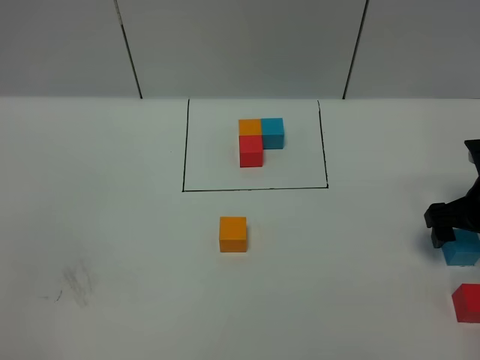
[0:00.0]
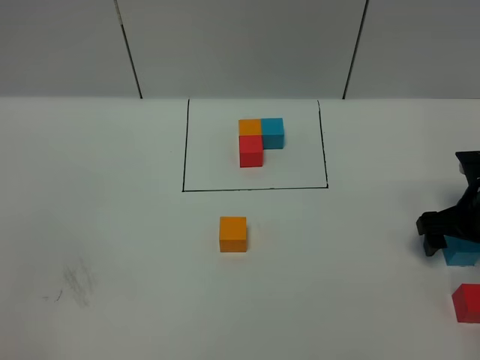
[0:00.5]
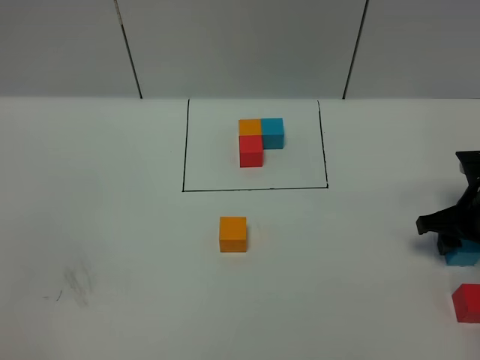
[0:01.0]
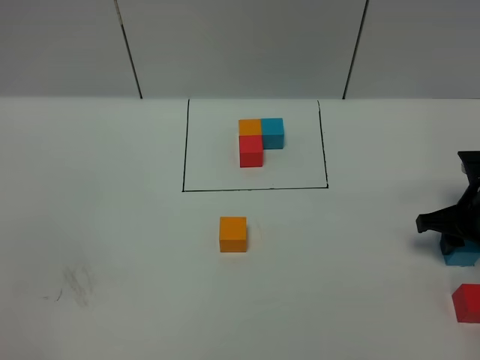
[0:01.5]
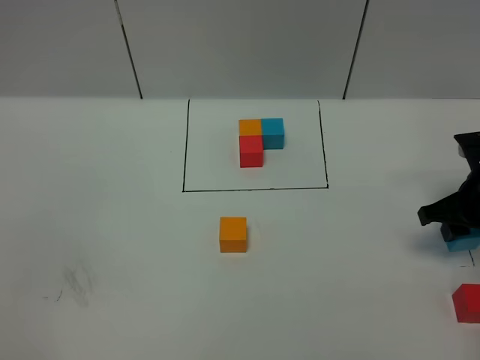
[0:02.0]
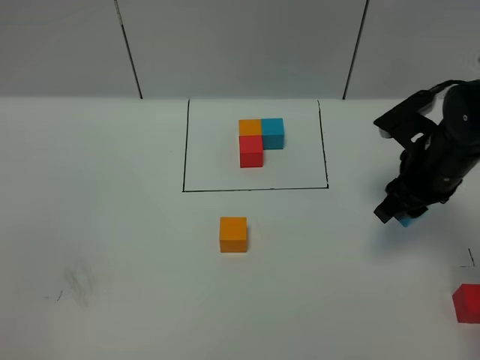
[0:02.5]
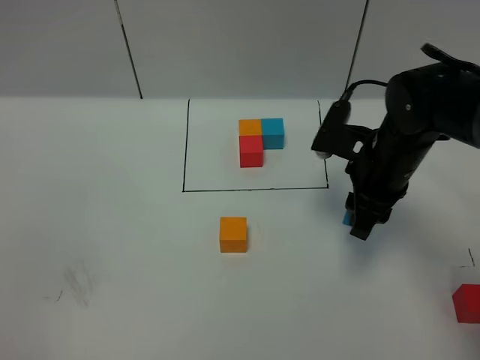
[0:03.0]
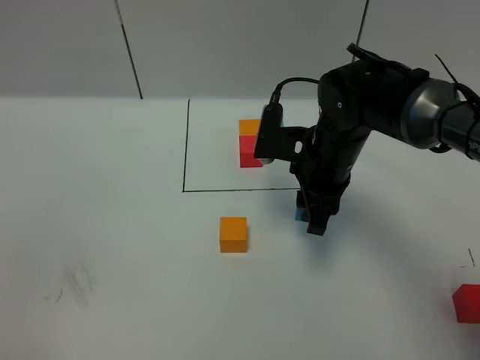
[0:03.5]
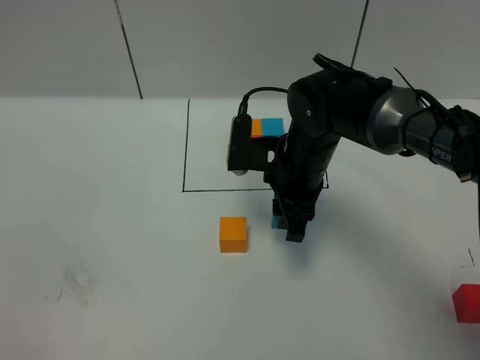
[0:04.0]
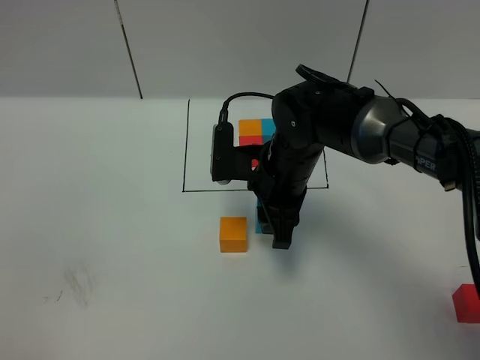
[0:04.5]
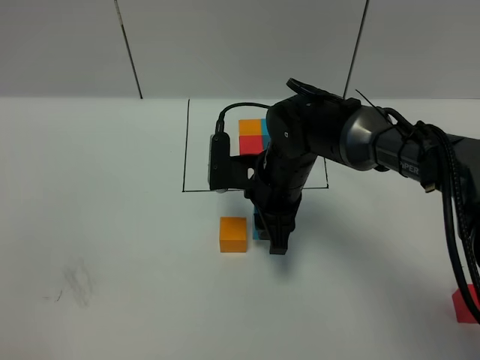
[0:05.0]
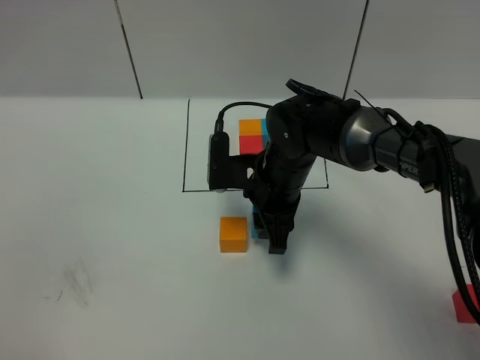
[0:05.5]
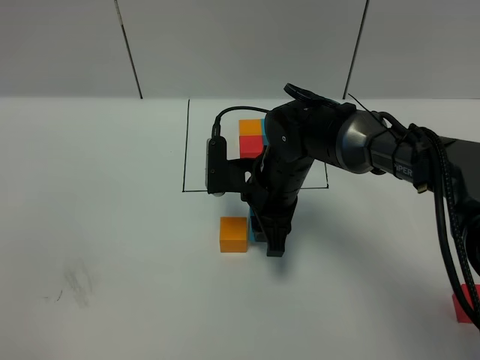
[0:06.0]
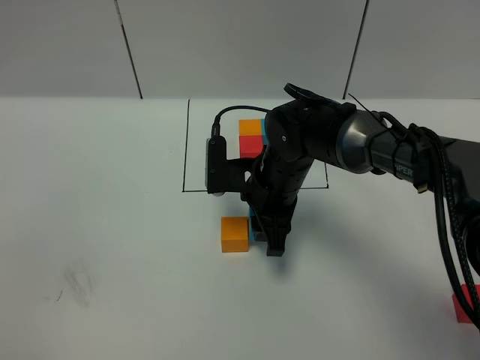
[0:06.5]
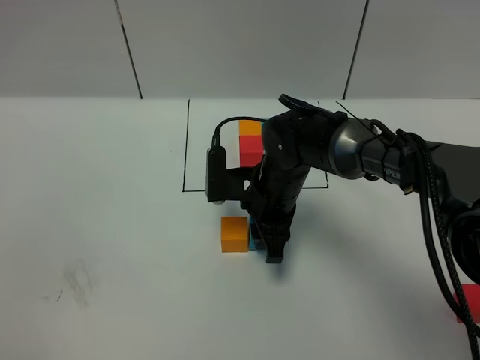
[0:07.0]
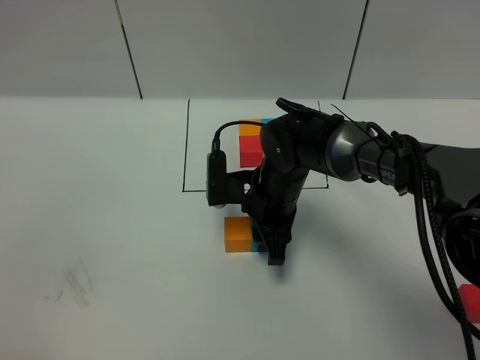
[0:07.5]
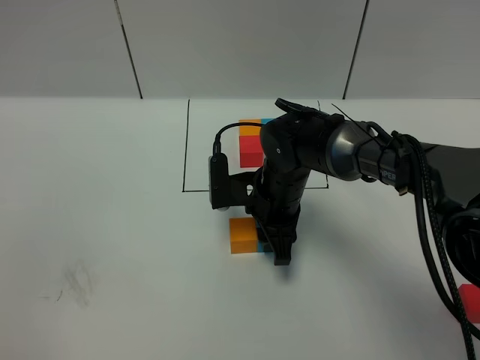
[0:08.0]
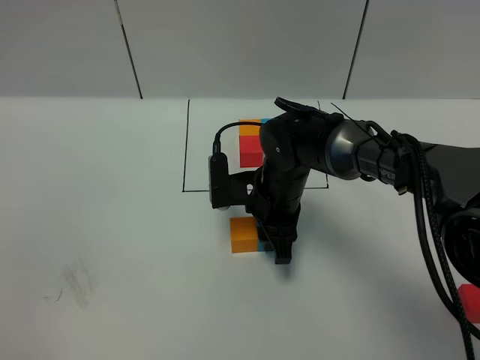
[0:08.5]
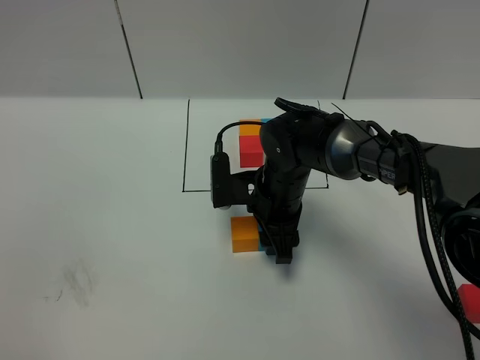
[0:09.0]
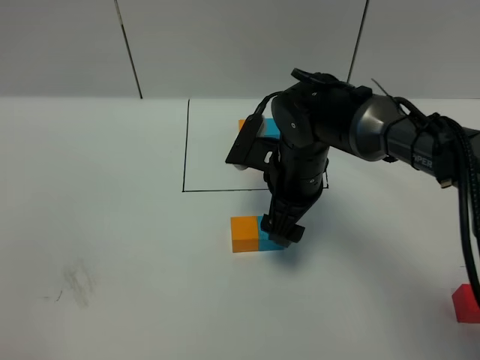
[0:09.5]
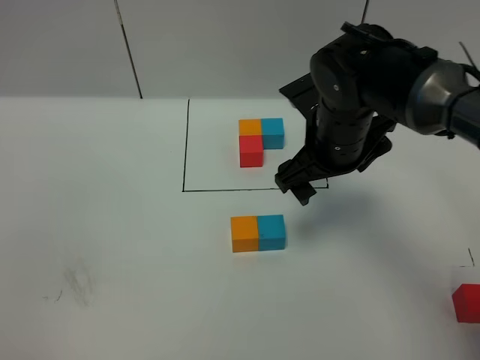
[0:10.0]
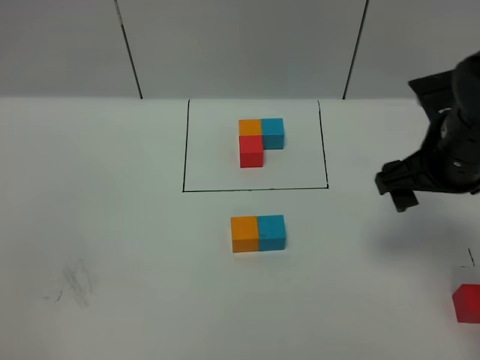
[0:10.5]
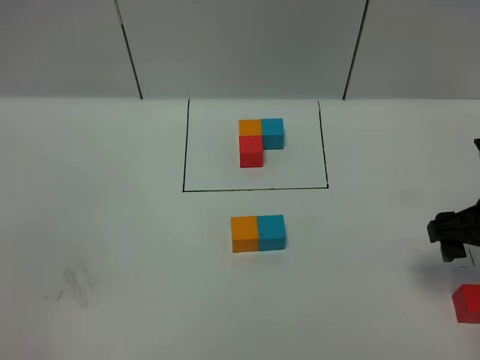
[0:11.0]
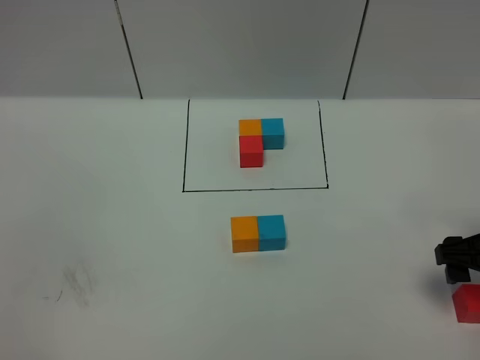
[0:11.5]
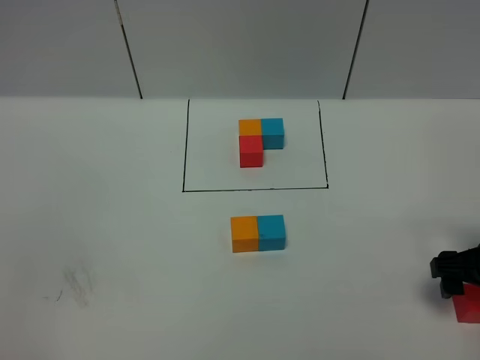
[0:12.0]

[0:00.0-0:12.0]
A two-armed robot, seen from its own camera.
Task of the whole recording: According to the building block template in front, assemble the scattered blocks together.
Step, 0:00.0 to 0:09.0: Put the blue cube on the right of the orange cube.
0:00.0 to 0:02.0: The right gripper closes up.
0:02.0 to 0:04.0: The right gripper travels to the left by approximately 25 cm.
0:04.0 to 0:06.0: The grippers move only a little.
0:06.0 to 0:08.0: The grippers move only a little.
0:08.0 to 0:10.0: The right gripper goes approximately 15 cm upward and to the right, and opens.
0:10.0 to 0:12.0: The right gripper shifts about 25 cm to the right, backward and downward.

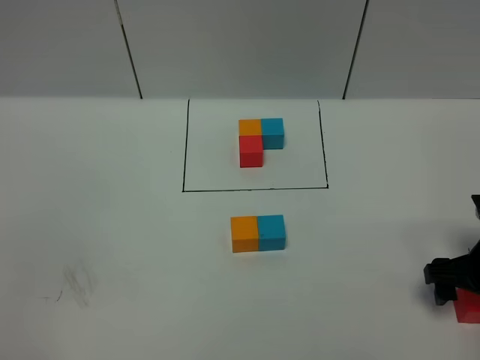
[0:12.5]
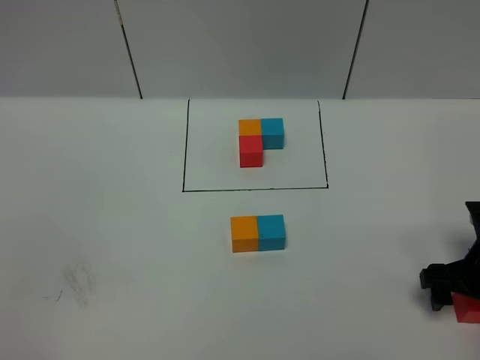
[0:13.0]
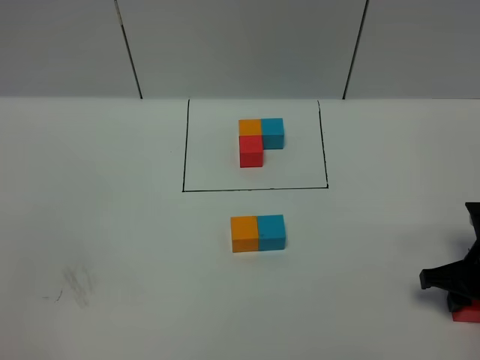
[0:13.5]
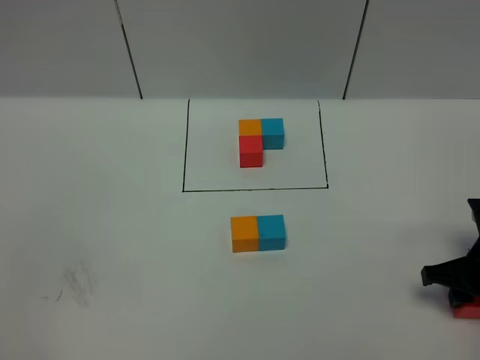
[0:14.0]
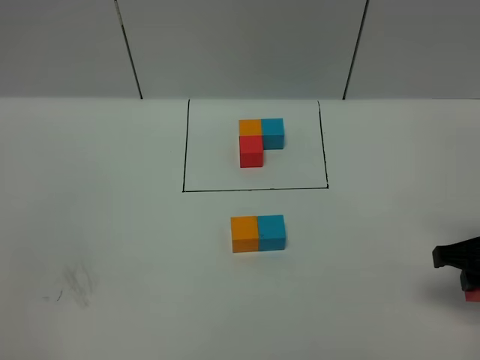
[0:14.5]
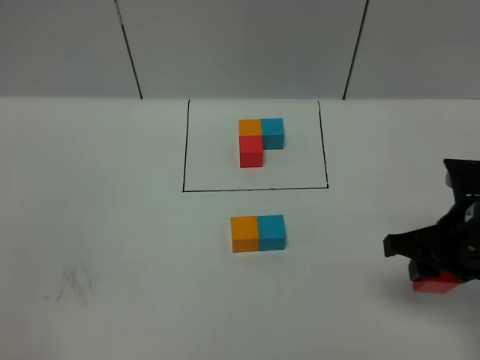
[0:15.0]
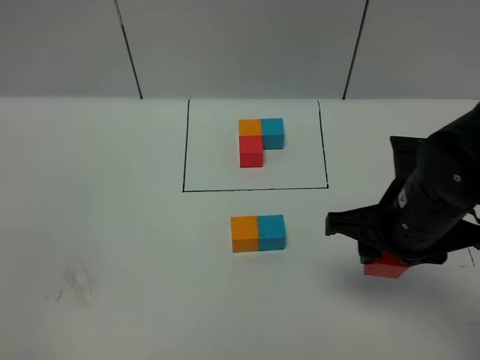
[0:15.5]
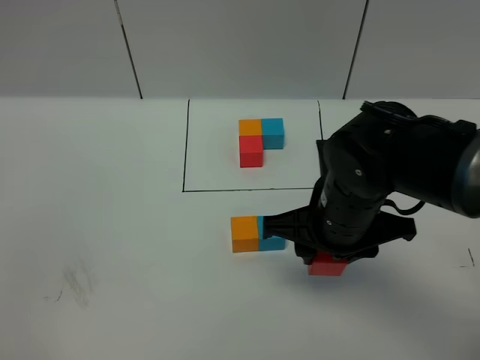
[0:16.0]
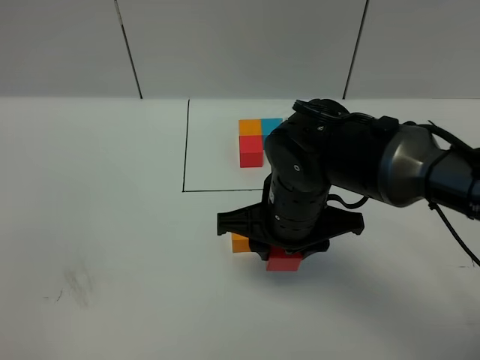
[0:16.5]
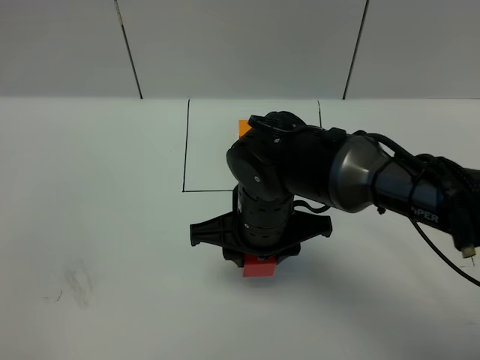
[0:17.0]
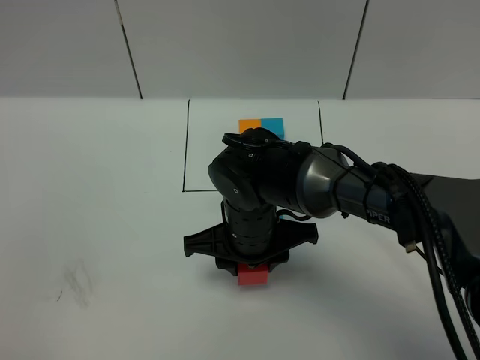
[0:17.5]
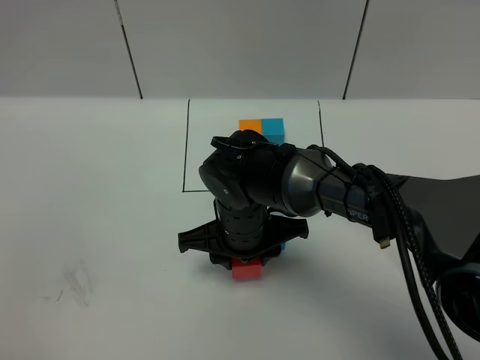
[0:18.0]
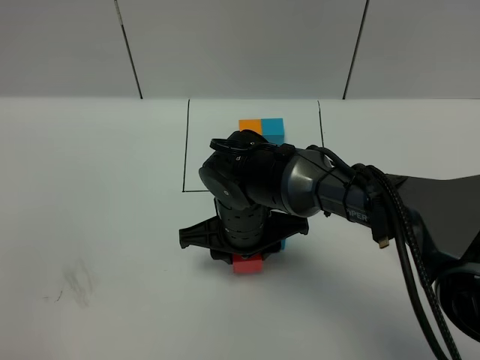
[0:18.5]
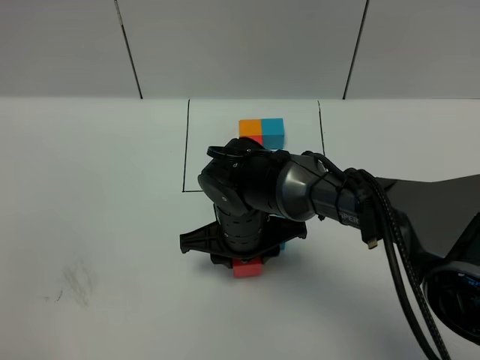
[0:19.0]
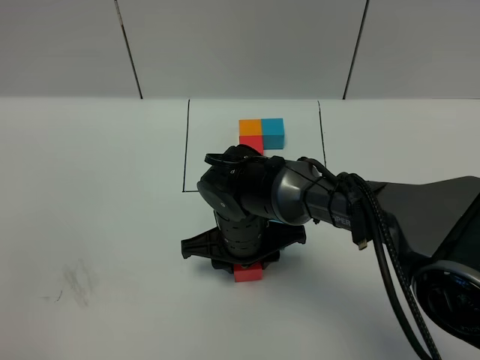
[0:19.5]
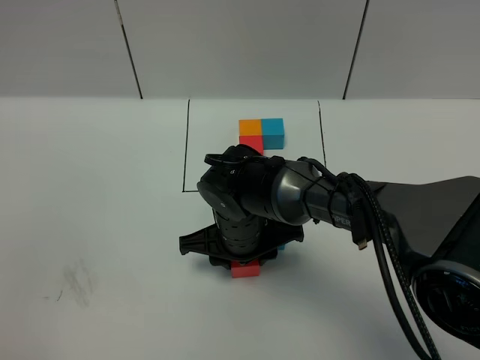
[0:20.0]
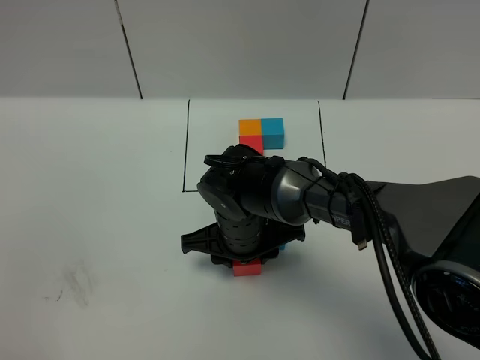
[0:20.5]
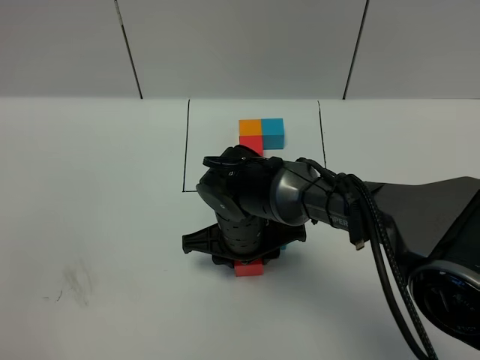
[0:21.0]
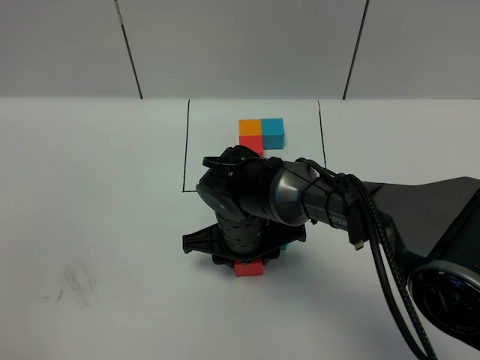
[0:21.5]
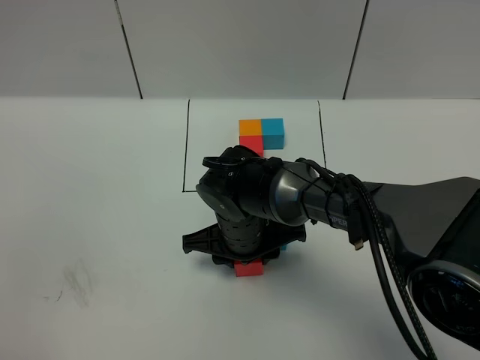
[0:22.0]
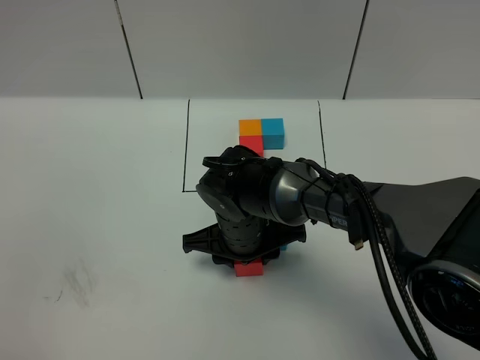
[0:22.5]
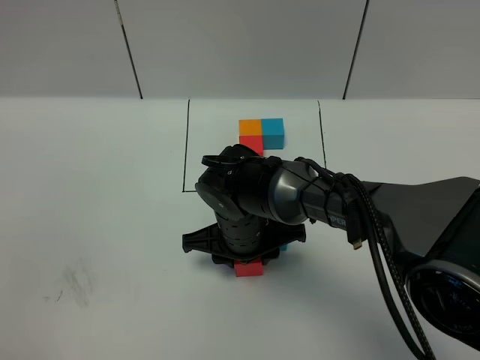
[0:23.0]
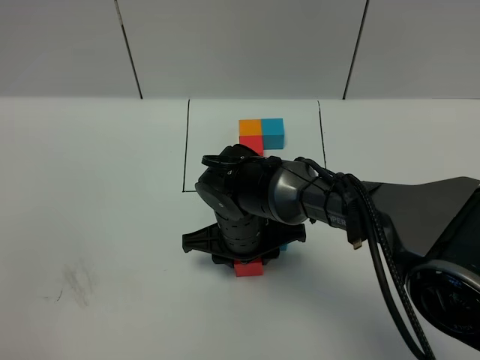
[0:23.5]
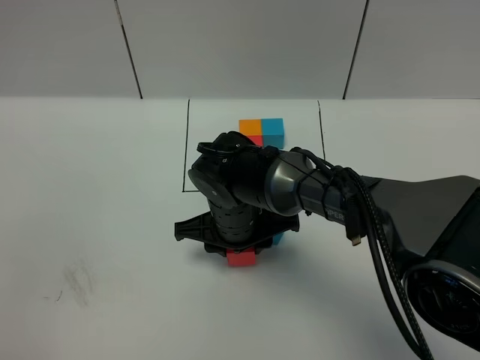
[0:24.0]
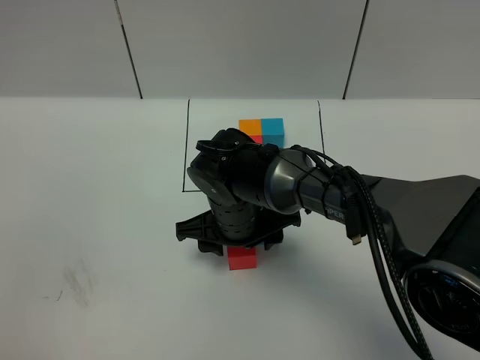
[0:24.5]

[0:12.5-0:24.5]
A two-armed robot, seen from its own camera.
Task of the whole recording: According to the building block template in front, assemble the scattered blocks together.
0:12.5 to 0:14.5: The right gripper goes some 5 cm upward, and closes.
0:14.5 to 0:16.5: The right gripper moves to the left, some 25 cm.
0:16.5 to 0:18.5: The right gripper moves downward and to the left, about 10 cm.
0:18.5 to 0:20.5: The grippers stay close to where they were, moving slightly.
0:20.5 to 0:22.5: The two grippers keep their place.
0:22.5 to 0:24.5: The grippers make only small movements.

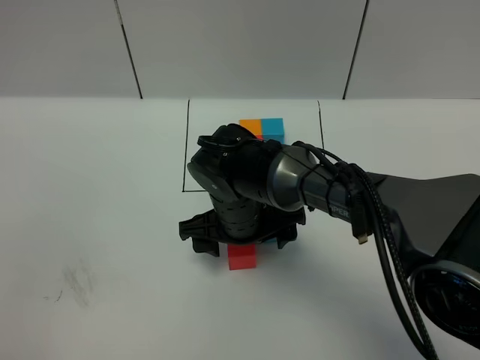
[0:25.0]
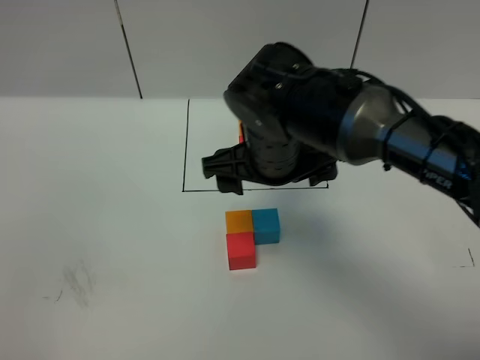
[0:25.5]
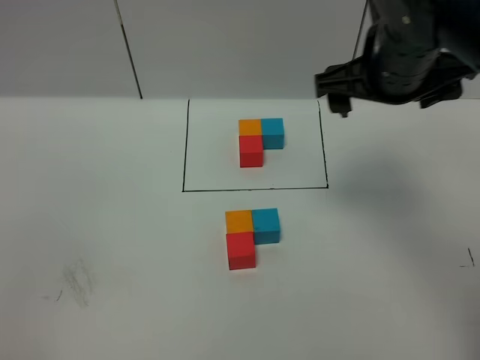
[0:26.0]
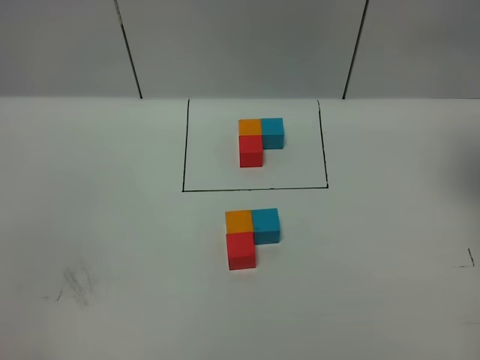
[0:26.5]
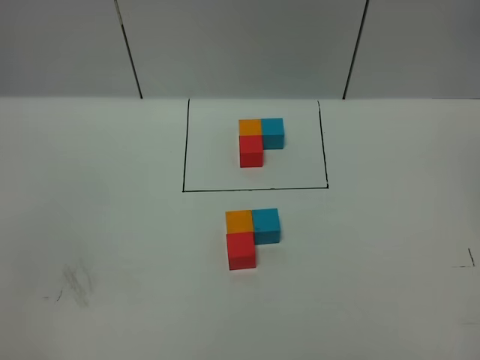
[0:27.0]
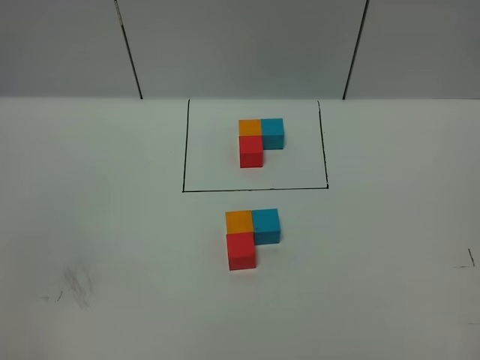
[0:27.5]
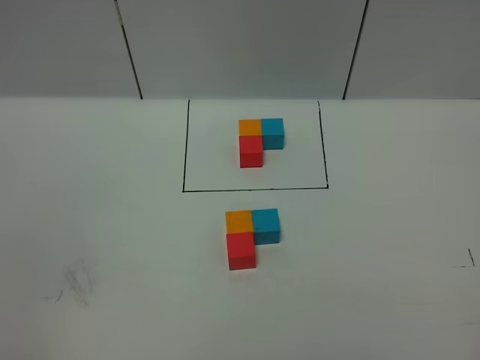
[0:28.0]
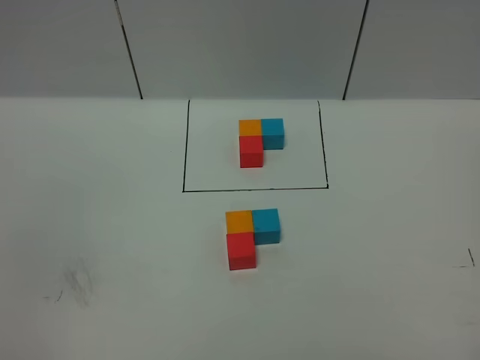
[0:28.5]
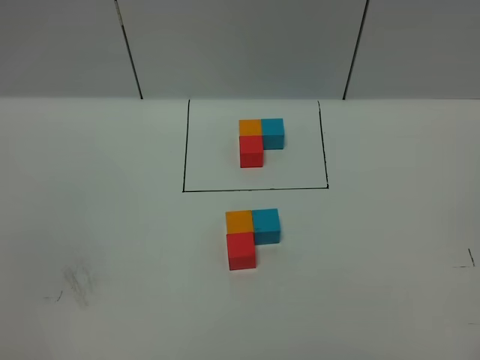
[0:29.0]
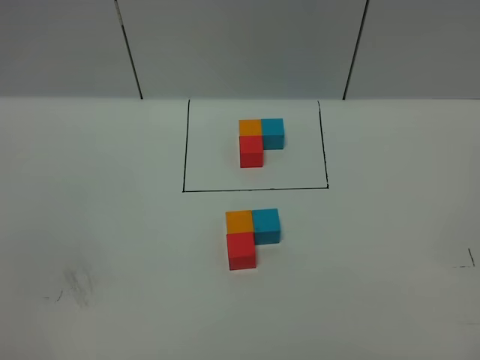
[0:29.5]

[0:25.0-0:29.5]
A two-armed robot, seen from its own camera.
Task of the whole recording: According to the building block template in front, assemble the scattered blocks together.
0:25.0 to 0:27.0: The right gripper travels to the right and upward by roughly 50 cm.
